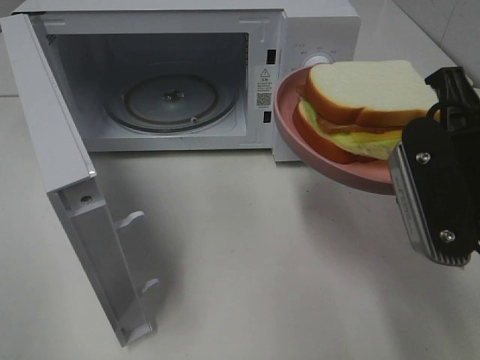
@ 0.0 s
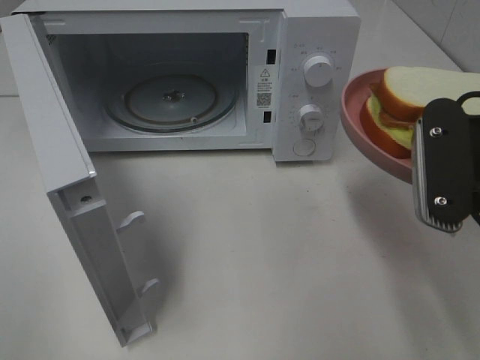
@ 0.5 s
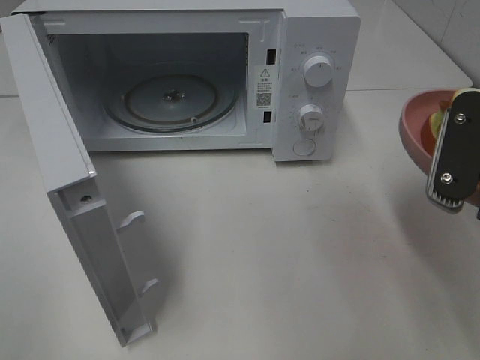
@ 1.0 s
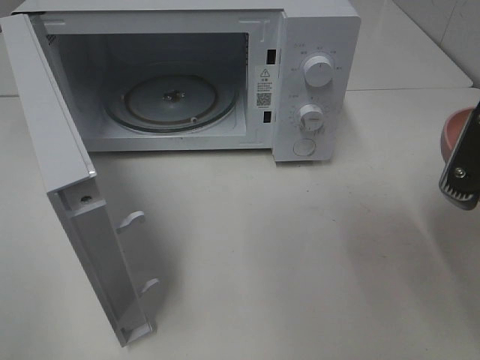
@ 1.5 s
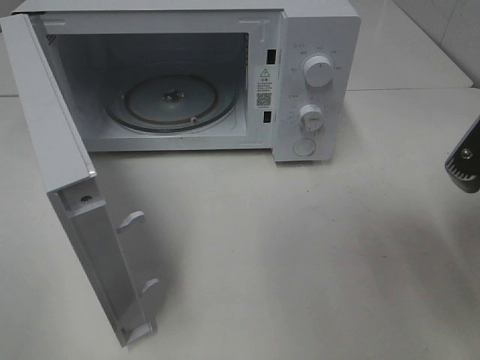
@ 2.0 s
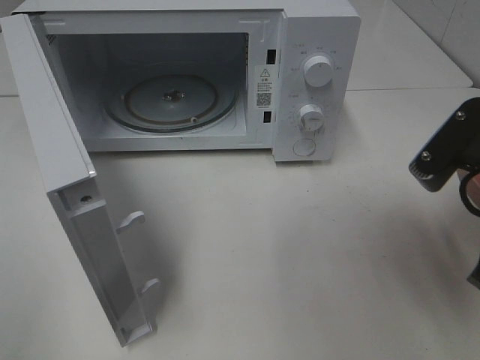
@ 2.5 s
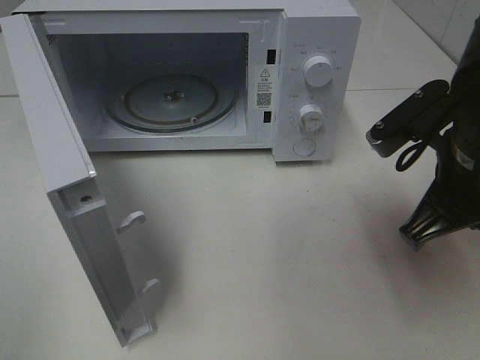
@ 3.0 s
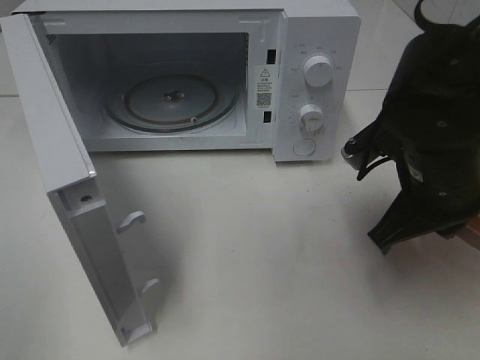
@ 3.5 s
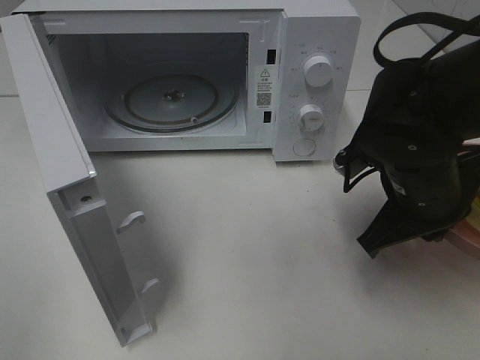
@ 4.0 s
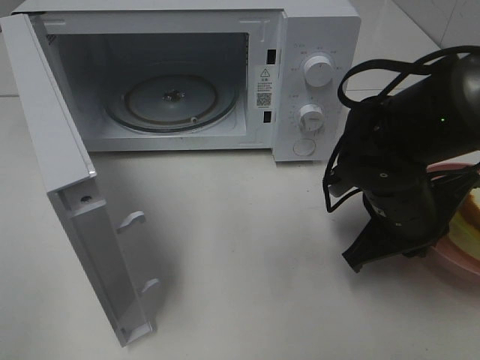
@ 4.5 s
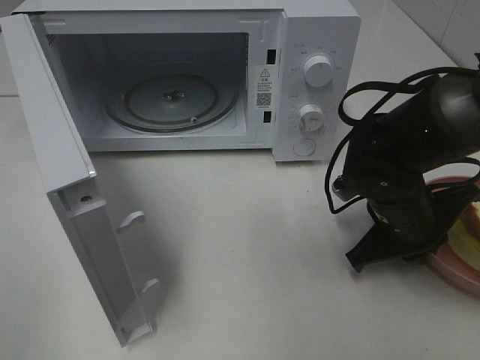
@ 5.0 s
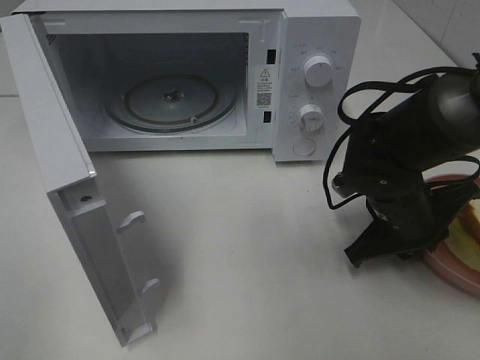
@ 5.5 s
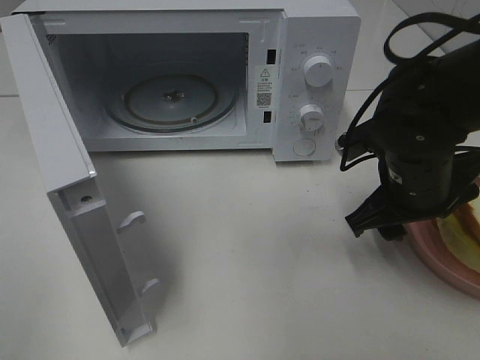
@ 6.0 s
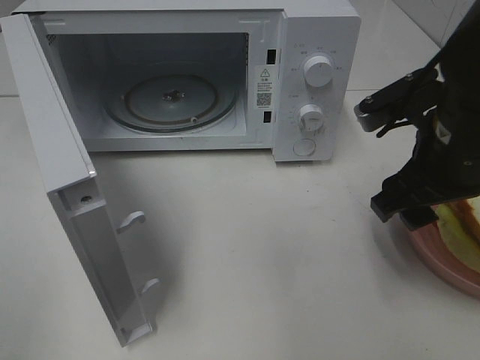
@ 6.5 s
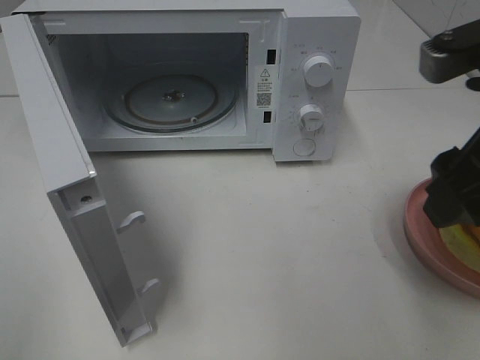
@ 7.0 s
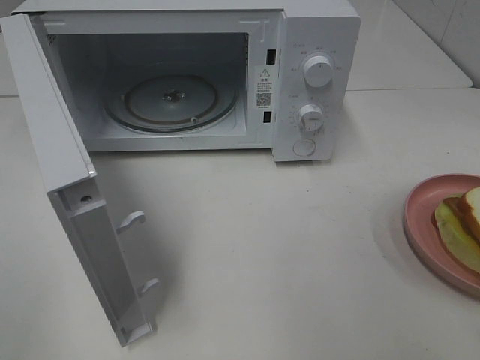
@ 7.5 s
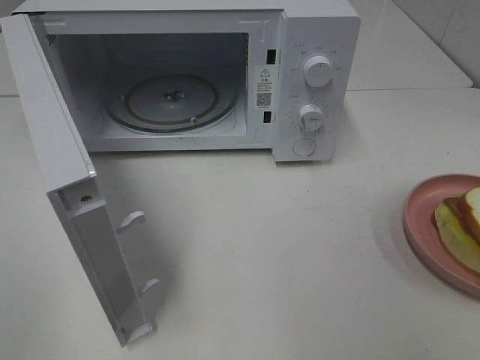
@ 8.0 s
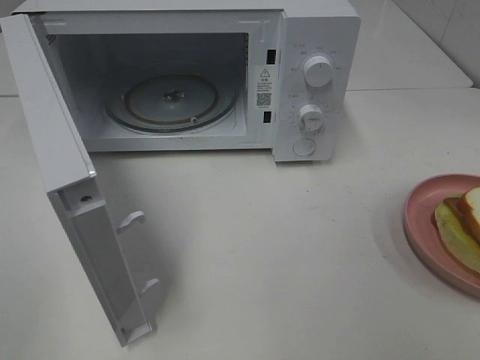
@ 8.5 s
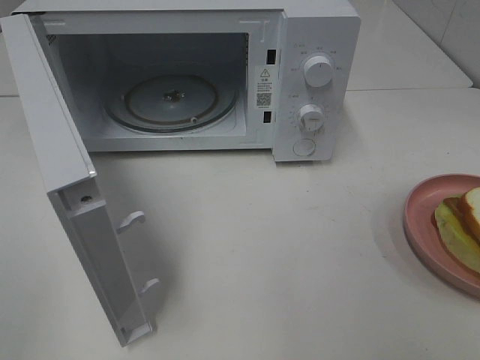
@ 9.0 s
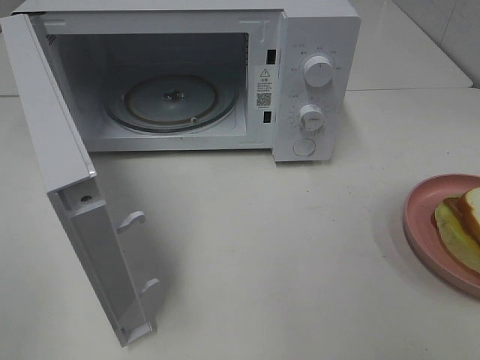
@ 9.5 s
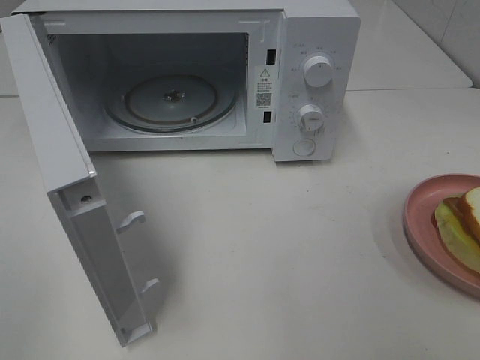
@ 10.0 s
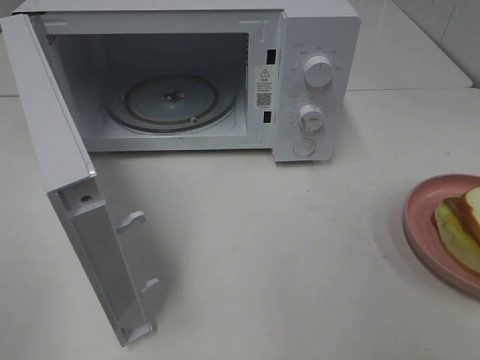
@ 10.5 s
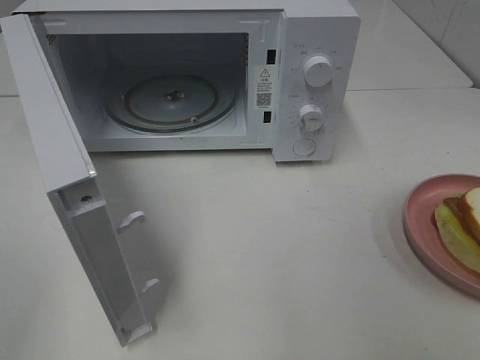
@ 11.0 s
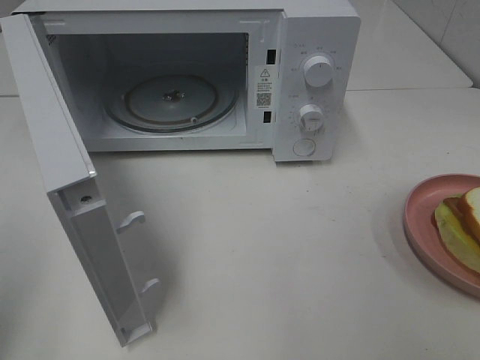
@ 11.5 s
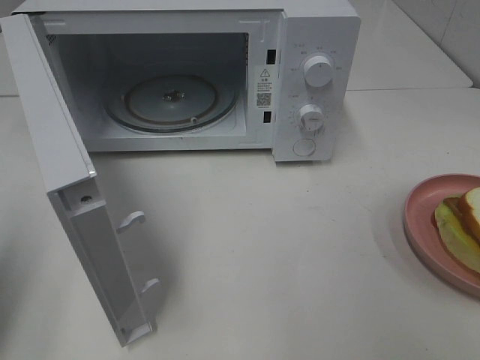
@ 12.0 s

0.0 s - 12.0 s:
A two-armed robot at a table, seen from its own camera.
Task of the whole recording: Heat Sandwich.
Step, 0.0 s - 6.5 s: Right hand: place the plate on the table.
2.0 s - 4.0 s: The right gripper moves forward, downward and to the left, approximately 15 cm.
4.0 s - 6.0 s: The right gripper opens.
6.0 s - 8.0 s: The right gripper moves backward, upward and to the right, approximately 35 cm.
10.0 s - 12.0 s: The left gripper shifts some 15 cm forward, and closes.

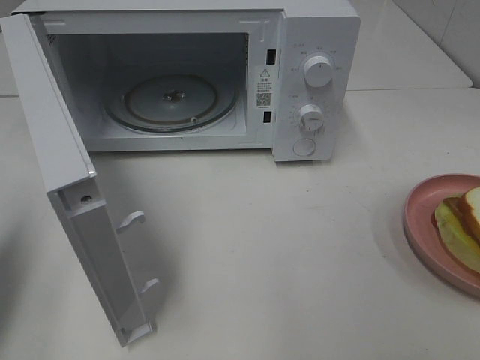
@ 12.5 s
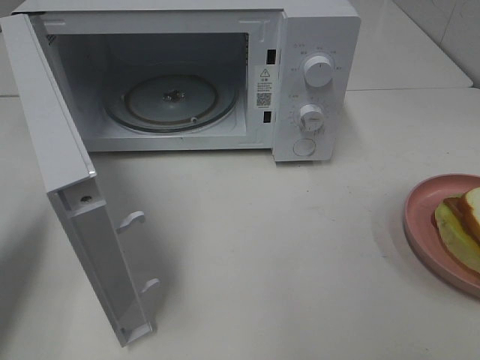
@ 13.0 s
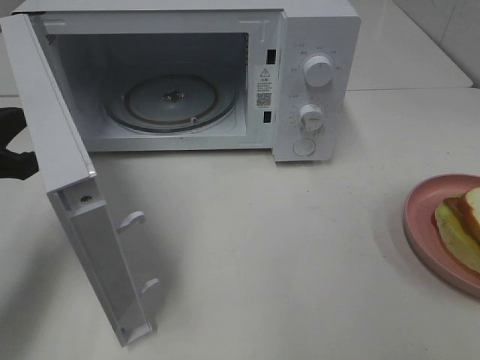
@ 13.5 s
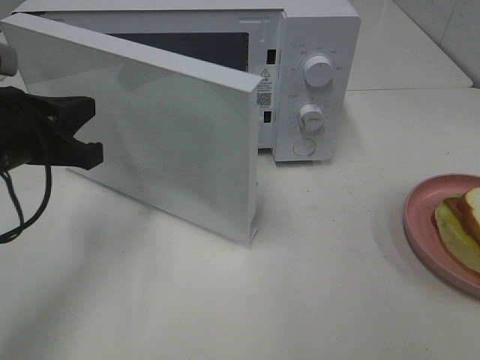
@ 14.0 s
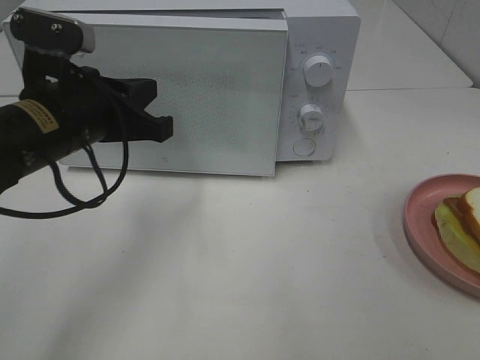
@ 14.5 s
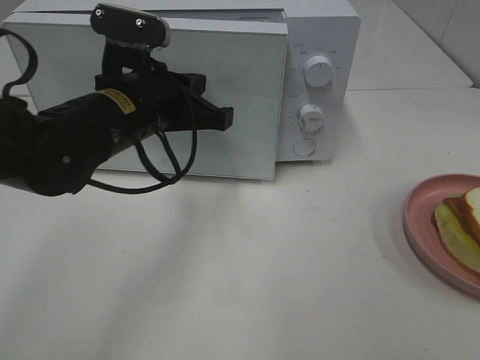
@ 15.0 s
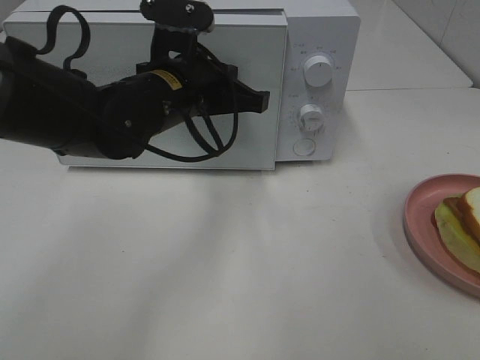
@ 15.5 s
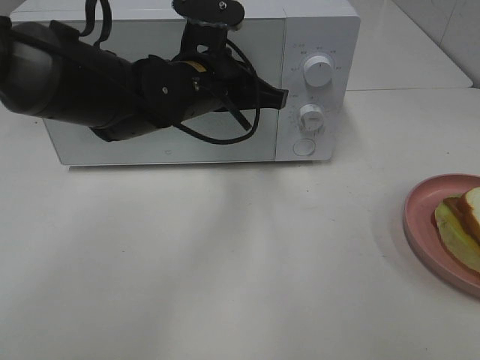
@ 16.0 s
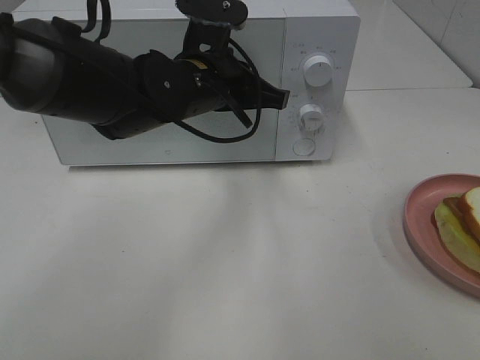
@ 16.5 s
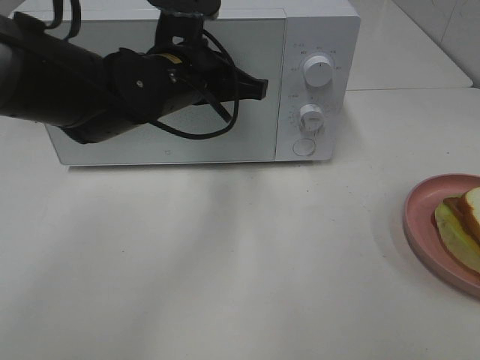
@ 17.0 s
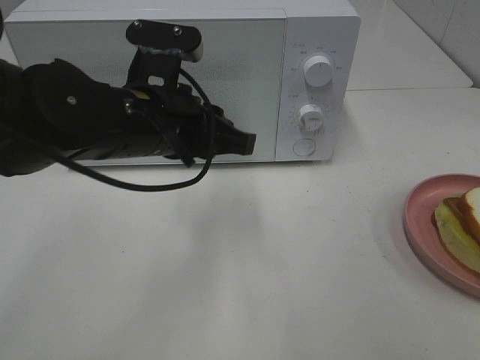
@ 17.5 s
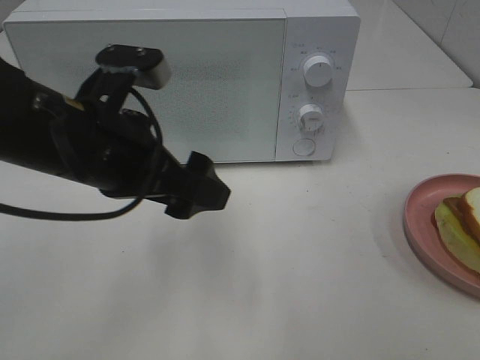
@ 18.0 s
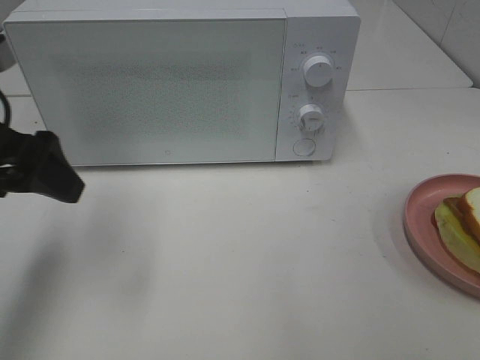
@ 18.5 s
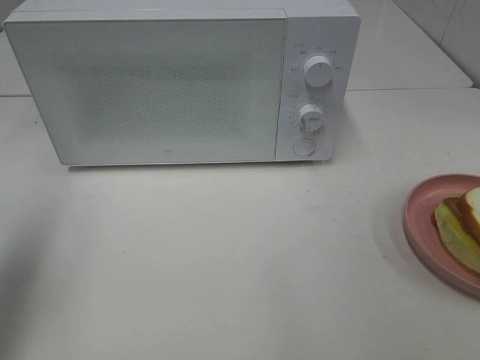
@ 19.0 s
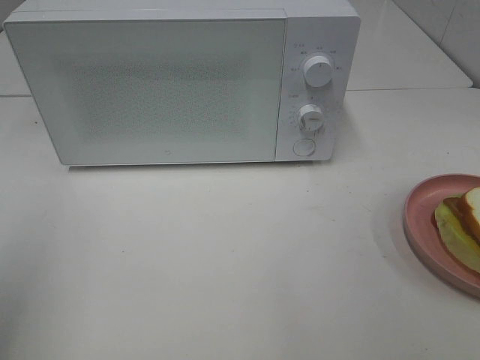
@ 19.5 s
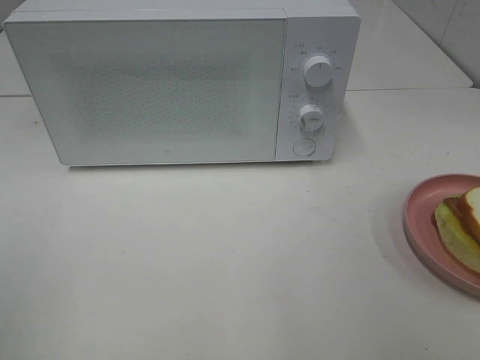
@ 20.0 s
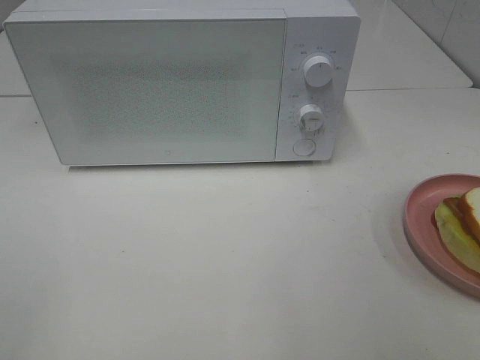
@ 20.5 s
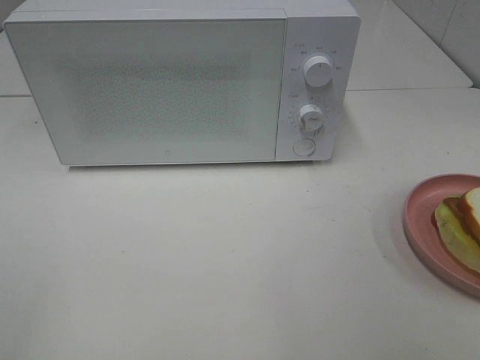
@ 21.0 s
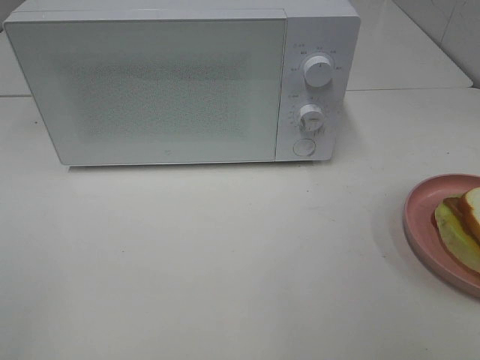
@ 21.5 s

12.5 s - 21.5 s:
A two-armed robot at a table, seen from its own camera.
Task of the whole recording: Heat Sandwich.
Step, 12.5 s - 17.0 s: Left hand: close the microwave door.
12.5 s - 14.5 s: The left gripper moves to the right and forward, approximately 20 cm.
14.5 s - 17.0 s: The left gripper heads to the right and forward, covering roughly 10 cm.
17.0 s - 19.5 s: The left gripper heads to the left, backward and upward, covering some 40 cm, and opens its fingers.

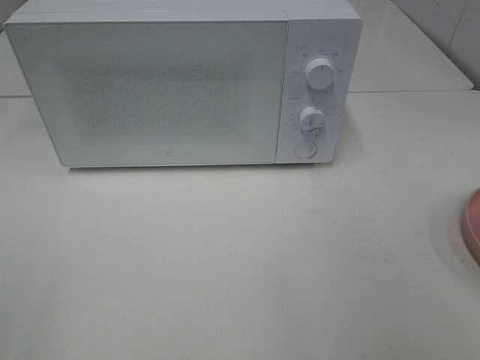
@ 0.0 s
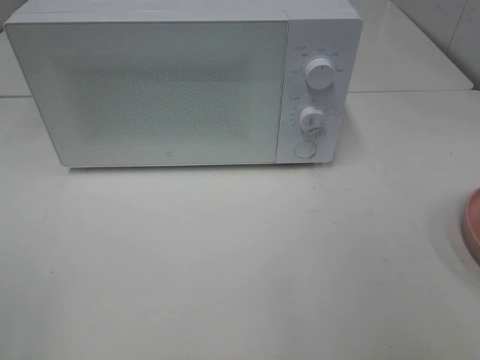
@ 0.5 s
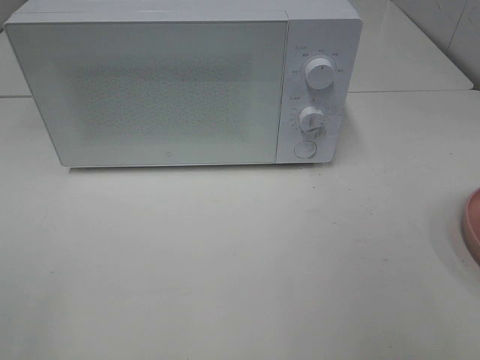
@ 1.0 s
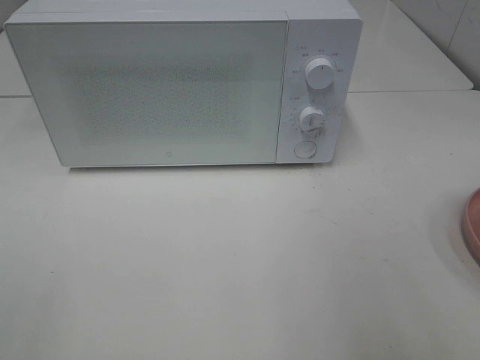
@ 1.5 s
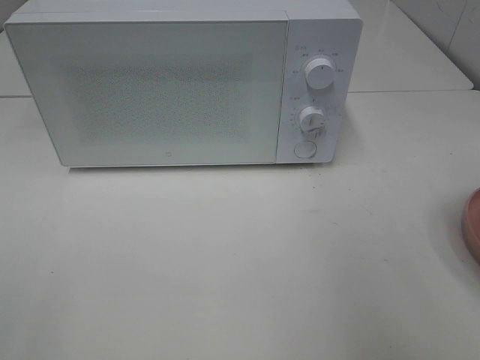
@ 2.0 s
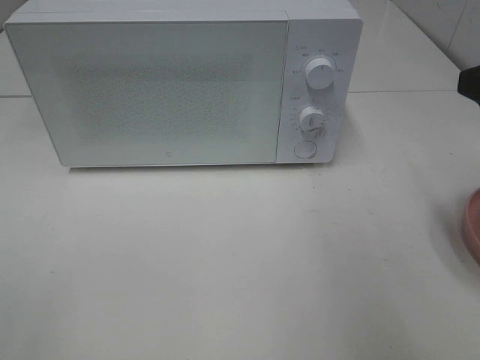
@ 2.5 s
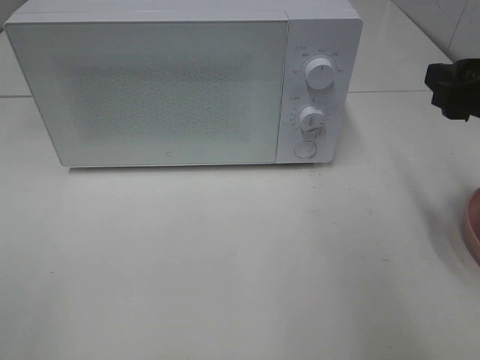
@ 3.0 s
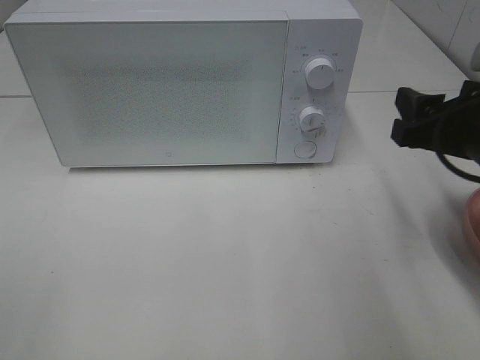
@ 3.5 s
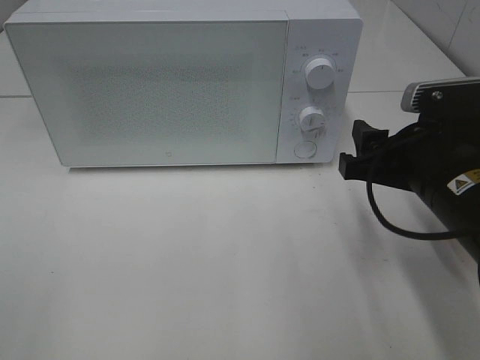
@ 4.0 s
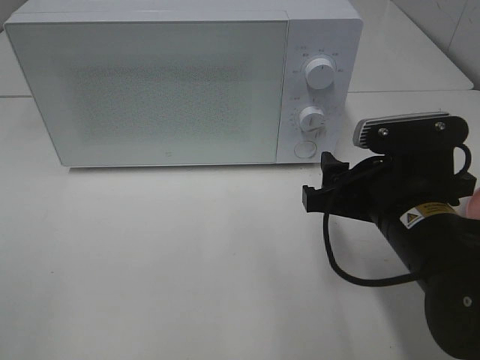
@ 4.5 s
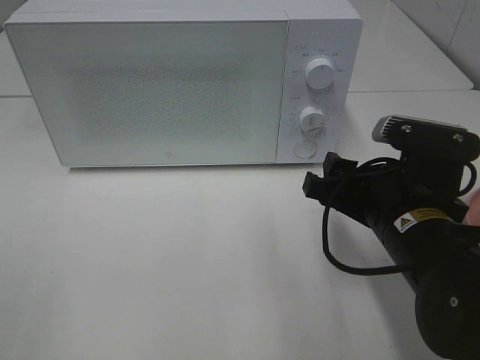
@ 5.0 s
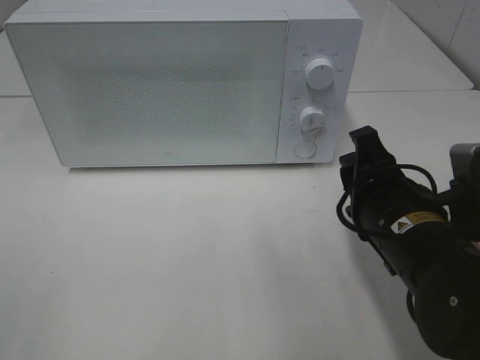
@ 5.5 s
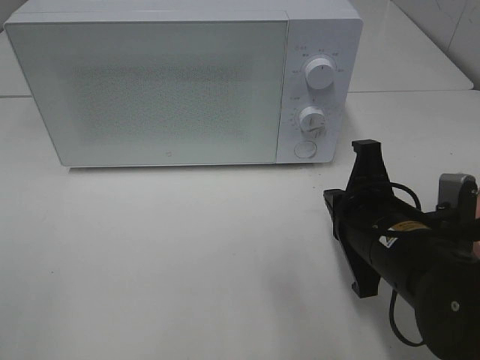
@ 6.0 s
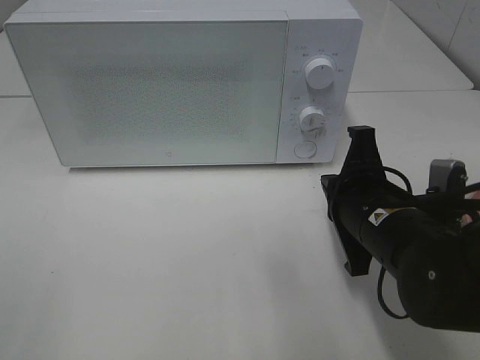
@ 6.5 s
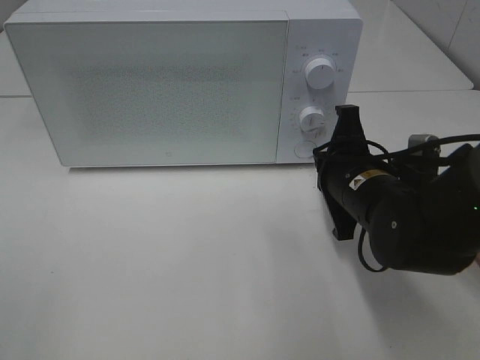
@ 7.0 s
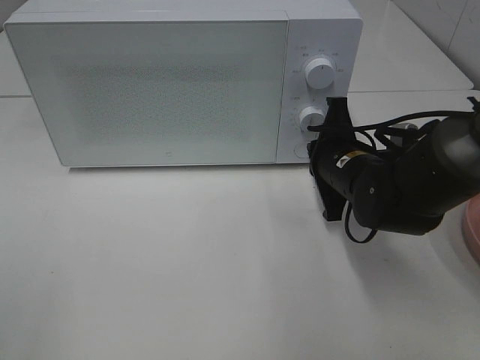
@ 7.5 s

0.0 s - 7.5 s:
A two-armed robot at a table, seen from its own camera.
Task of the whole recording: Heat Sandwich.
2.0 s - 4.0 s: The right gripper shifts about 15 cm downward, to the left and forward.
4.0 s - 5.5 s: The right gripper ends up roughly 5 cm from where it was.
5.5 s - 7.5 s: The right gripper travels forward by approximately 10 cm, and closes up.
